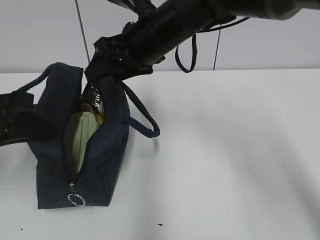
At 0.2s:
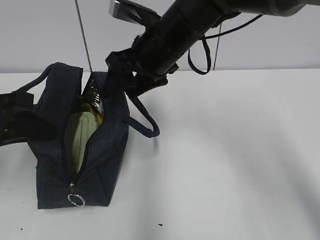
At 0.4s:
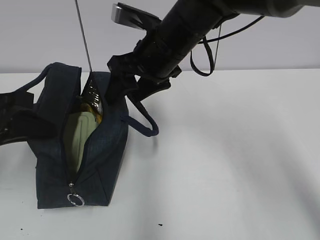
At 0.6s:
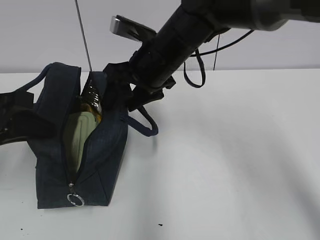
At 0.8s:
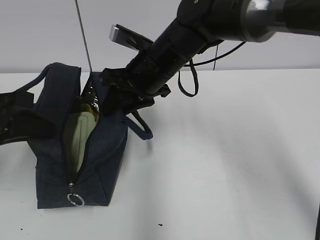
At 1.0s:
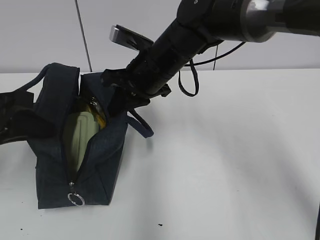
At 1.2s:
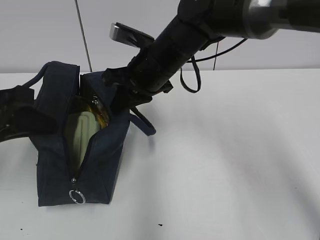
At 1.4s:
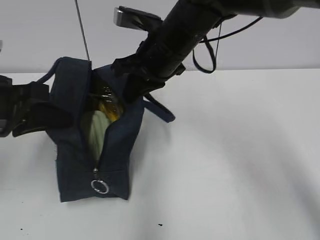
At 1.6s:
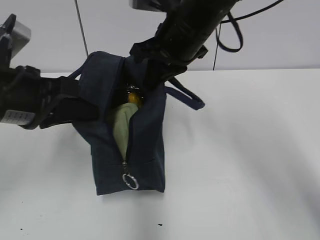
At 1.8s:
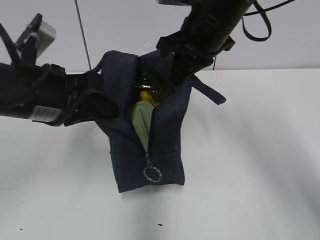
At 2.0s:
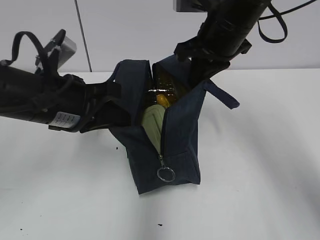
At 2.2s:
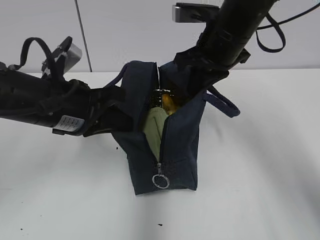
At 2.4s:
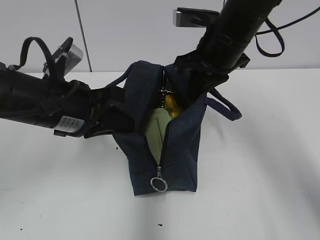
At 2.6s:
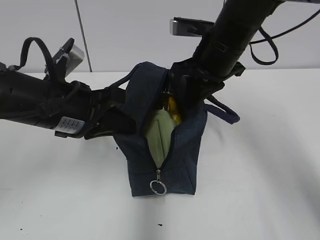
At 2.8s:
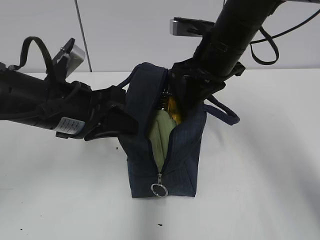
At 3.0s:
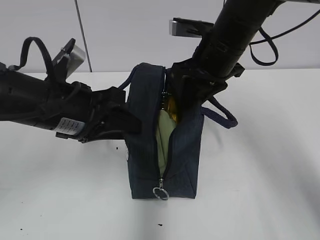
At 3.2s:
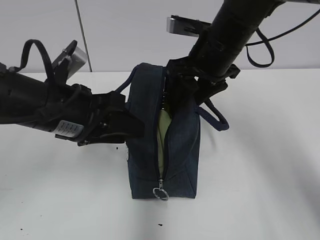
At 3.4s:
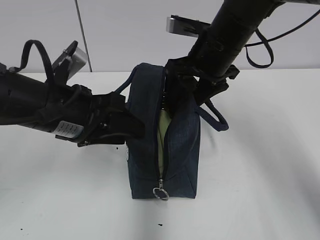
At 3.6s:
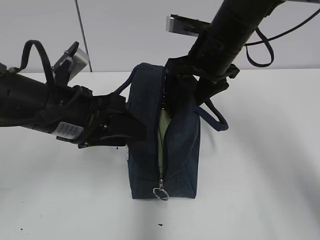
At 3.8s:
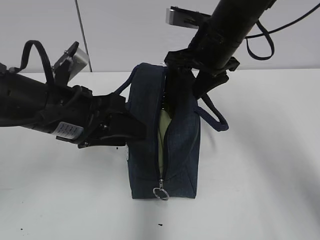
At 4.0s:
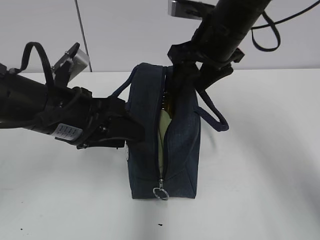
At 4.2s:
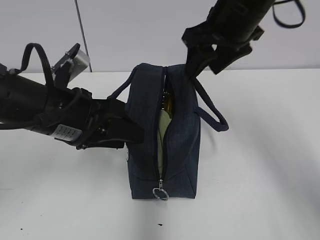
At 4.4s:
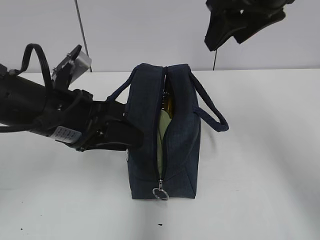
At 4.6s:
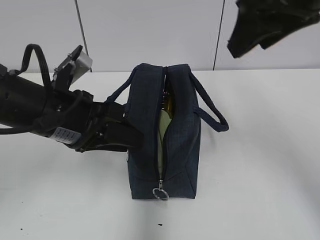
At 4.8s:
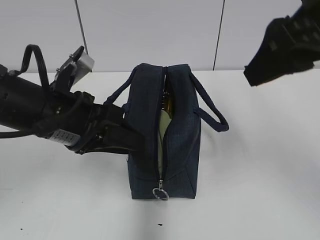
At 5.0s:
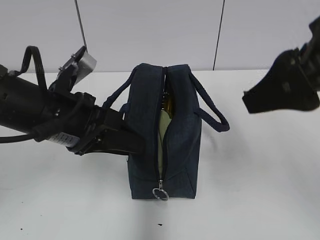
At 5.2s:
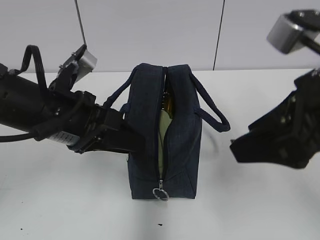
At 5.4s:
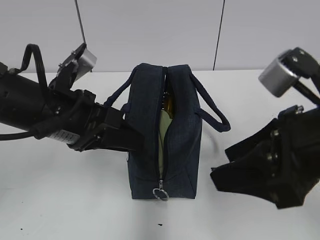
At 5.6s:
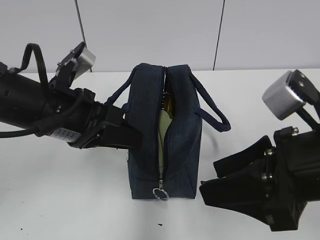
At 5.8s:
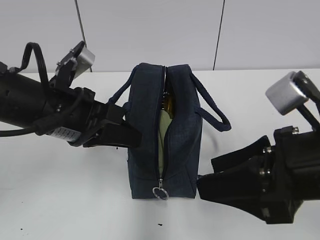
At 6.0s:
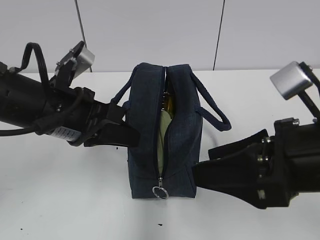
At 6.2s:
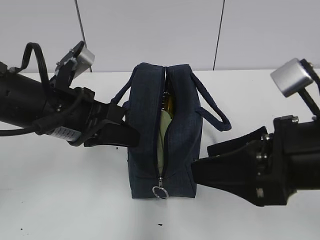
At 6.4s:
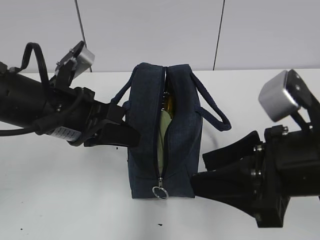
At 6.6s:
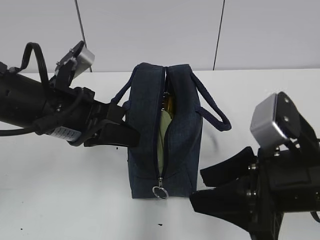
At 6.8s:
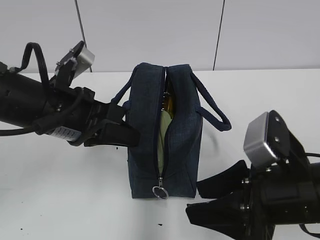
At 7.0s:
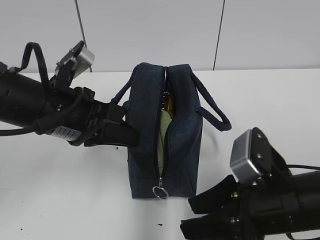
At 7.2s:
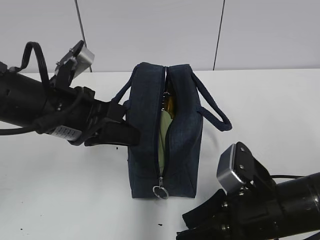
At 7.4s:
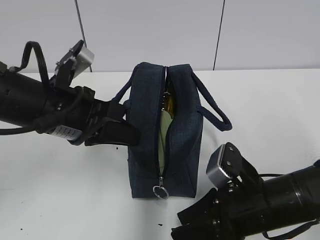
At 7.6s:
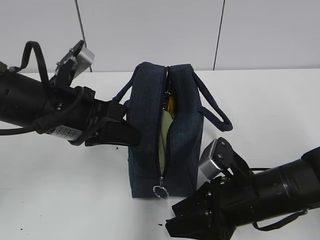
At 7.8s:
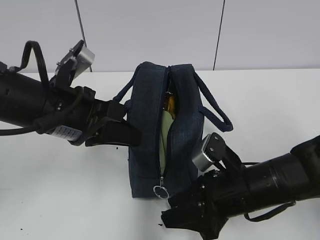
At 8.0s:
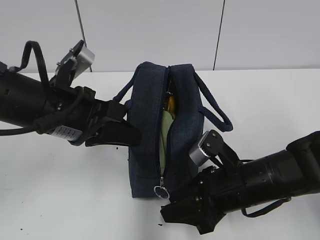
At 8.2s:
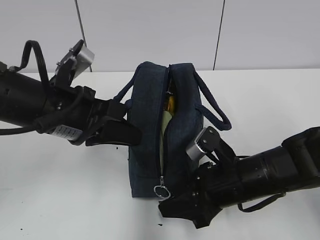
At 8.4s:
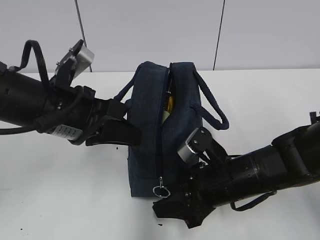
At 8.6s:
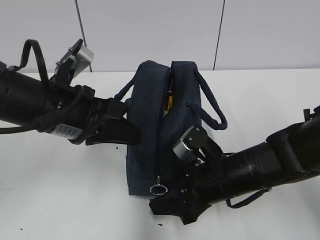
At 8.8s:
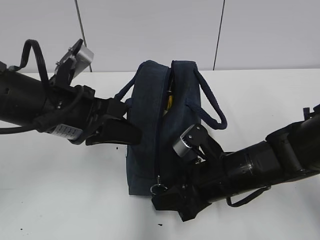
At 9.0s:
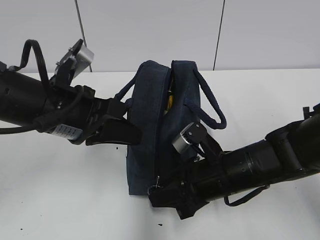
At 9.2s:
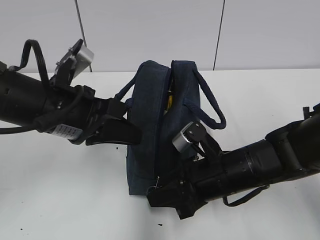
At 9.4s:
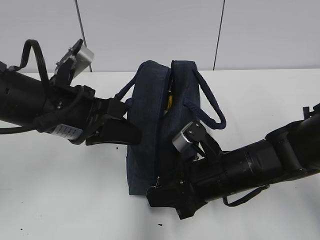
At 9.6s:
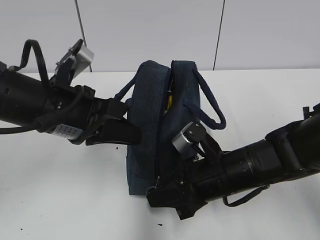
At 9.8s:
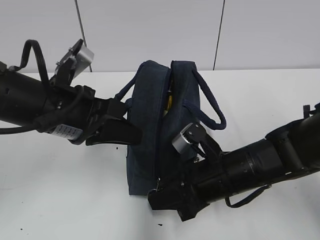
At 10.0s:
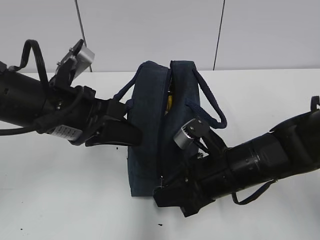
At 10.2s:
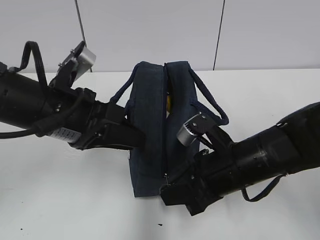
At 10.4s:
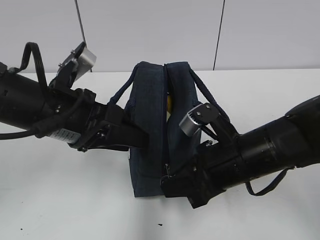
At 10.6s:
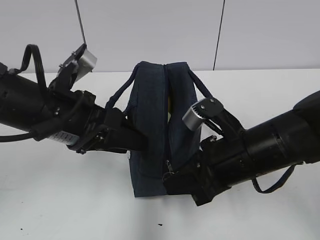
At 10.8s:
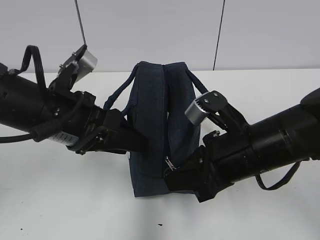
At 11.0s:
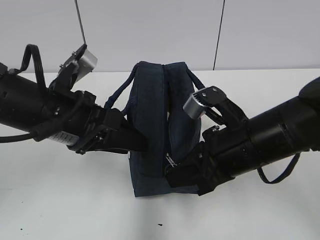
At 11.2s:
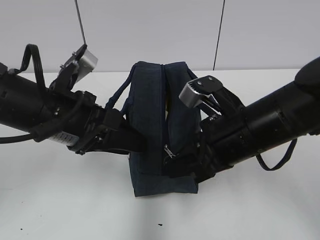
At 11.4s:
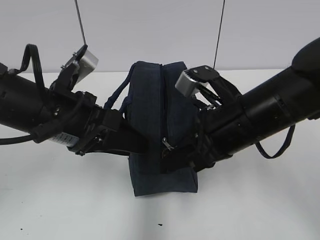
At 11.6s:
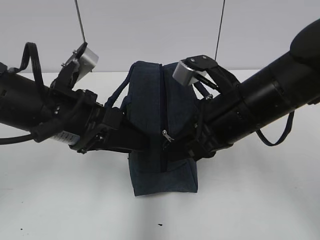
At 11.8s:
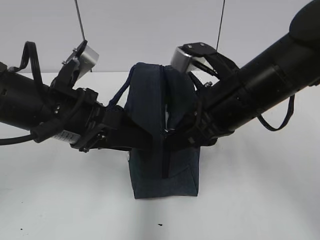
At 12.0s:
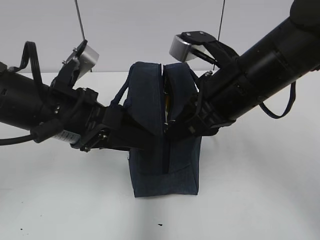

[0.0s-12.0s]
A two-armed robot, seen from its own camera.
0.0s to 1.6s: The left gripper shifts some 5 cm to the right. The right gripper changes place by approximately 5 cm, and closes up.
1.6s to 3.0s: The left gripper moves approximately 5 cm, and opens its fingers; the right gripper changes place by roughly 5 cm, and opens up.
3.0s to 4.4s: The right gripper travels upward by roughly 10 cm, and opens.
4.4s to 6.0s: The right gripper shifts roughly 20 cm backward and downward; the left gripper closes up.
6.0s to 7.6s: The right gripper travels downward by approximately 15 cm.
7.6s to 9.0s: The right gripper closes up.
9.0s to 10.4s: The right gripper is displaced upward by roughly 5 cm. Meanwhile the left gripper opens its fingers.
10.4s to 12.0s: The right gripper shifts about 10 cm upward.

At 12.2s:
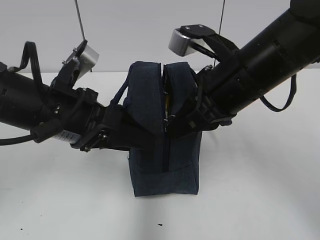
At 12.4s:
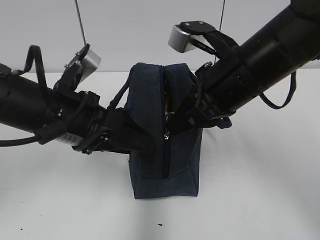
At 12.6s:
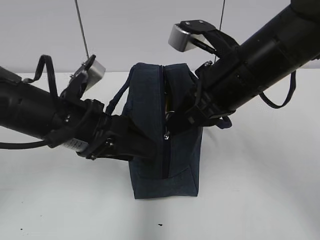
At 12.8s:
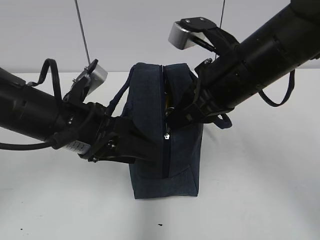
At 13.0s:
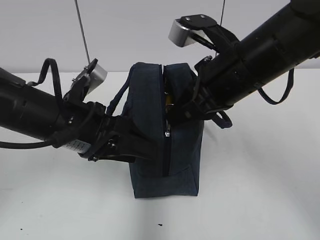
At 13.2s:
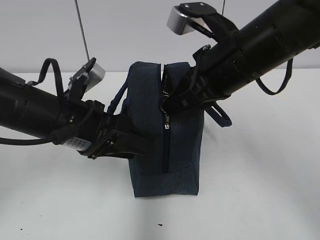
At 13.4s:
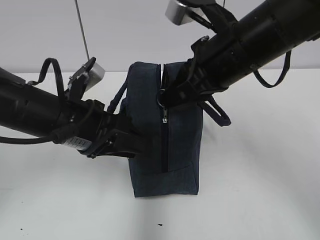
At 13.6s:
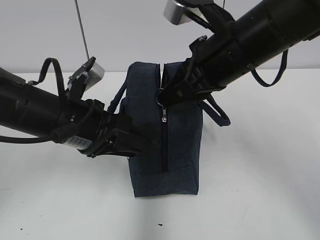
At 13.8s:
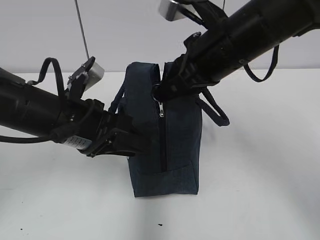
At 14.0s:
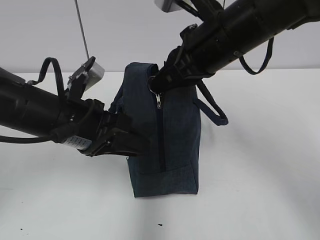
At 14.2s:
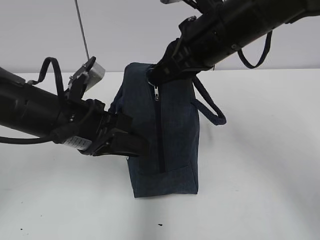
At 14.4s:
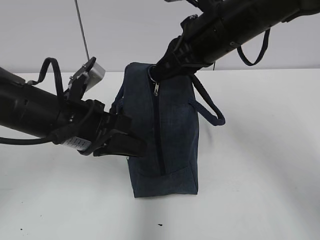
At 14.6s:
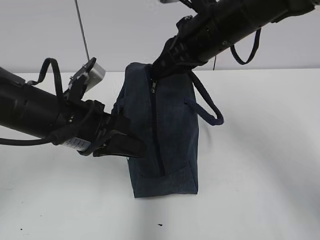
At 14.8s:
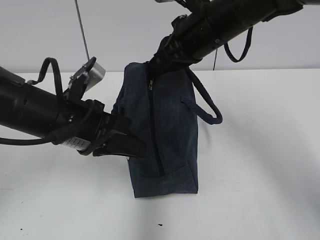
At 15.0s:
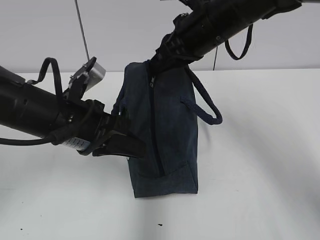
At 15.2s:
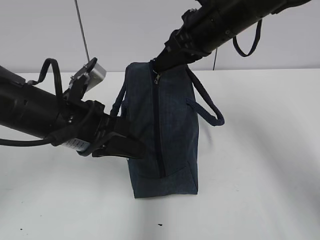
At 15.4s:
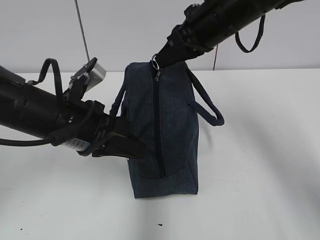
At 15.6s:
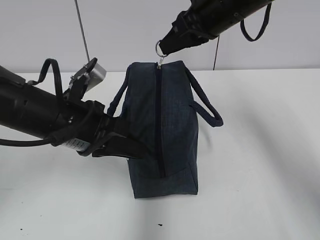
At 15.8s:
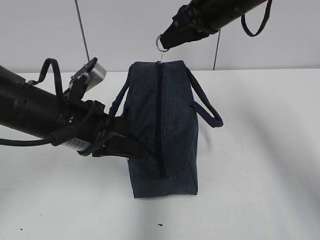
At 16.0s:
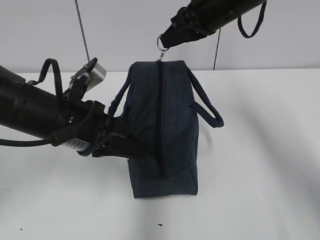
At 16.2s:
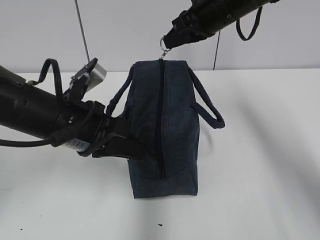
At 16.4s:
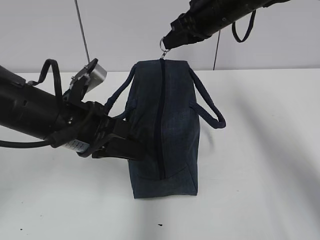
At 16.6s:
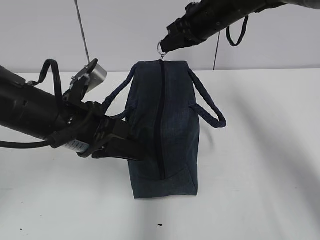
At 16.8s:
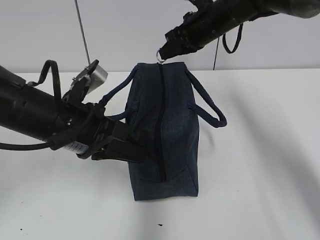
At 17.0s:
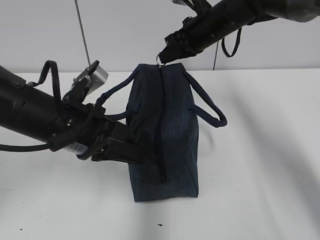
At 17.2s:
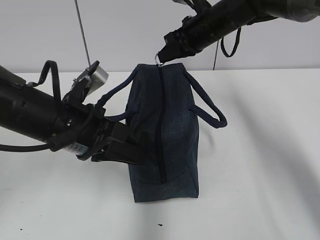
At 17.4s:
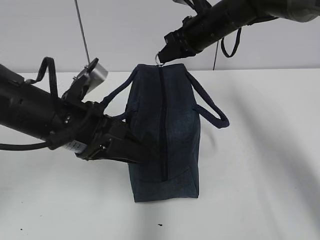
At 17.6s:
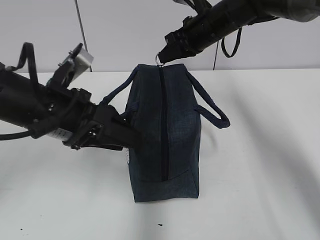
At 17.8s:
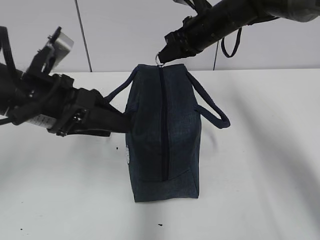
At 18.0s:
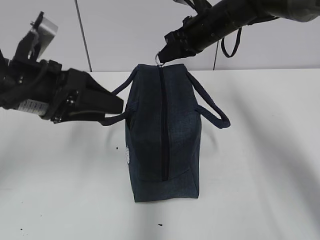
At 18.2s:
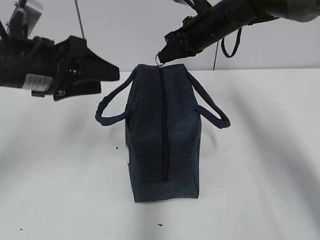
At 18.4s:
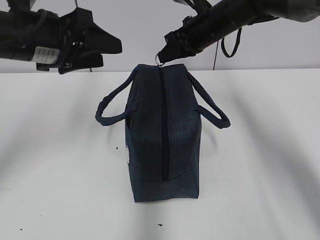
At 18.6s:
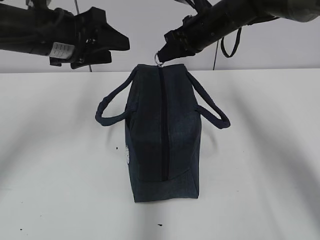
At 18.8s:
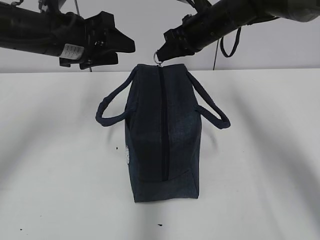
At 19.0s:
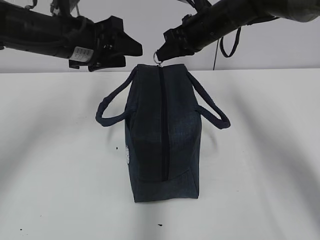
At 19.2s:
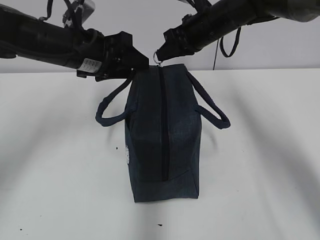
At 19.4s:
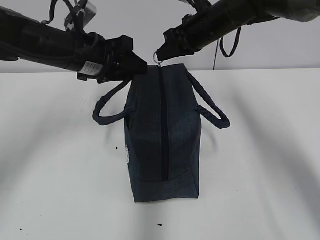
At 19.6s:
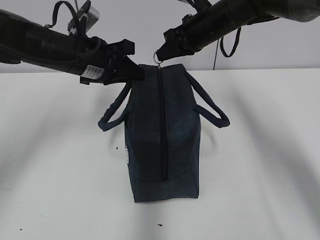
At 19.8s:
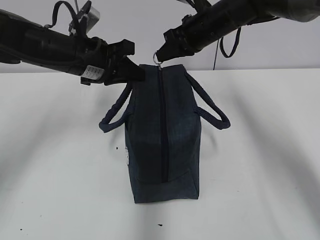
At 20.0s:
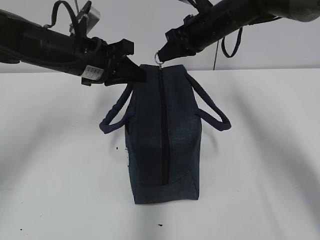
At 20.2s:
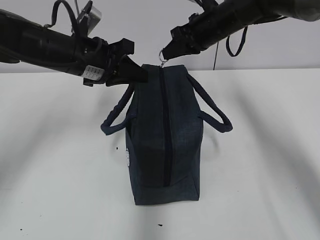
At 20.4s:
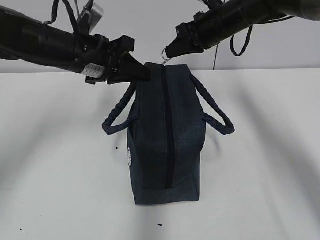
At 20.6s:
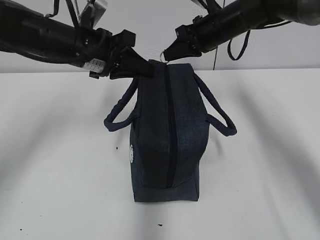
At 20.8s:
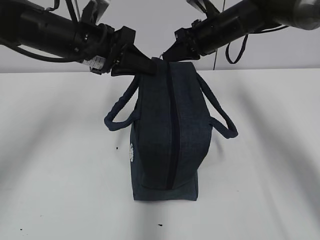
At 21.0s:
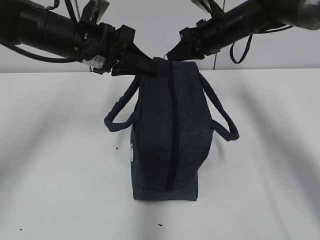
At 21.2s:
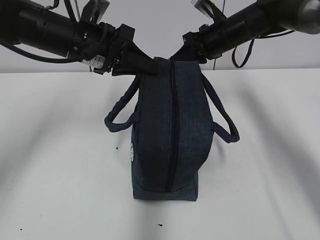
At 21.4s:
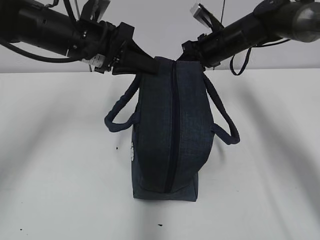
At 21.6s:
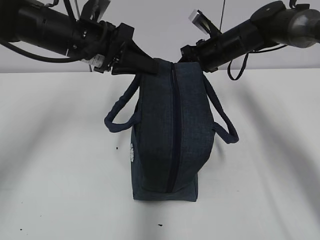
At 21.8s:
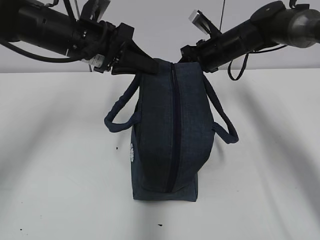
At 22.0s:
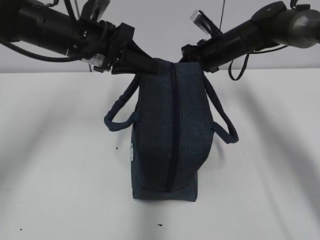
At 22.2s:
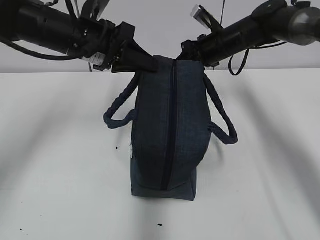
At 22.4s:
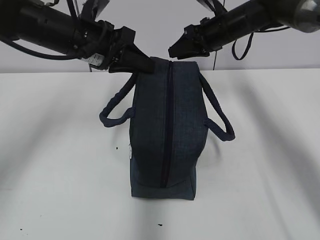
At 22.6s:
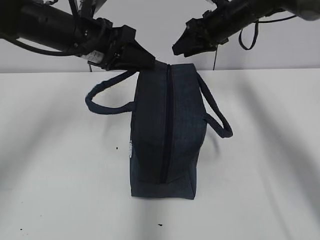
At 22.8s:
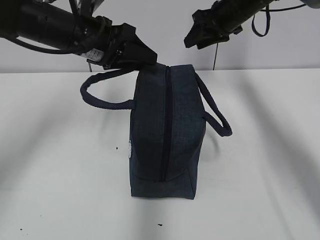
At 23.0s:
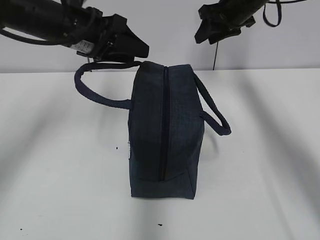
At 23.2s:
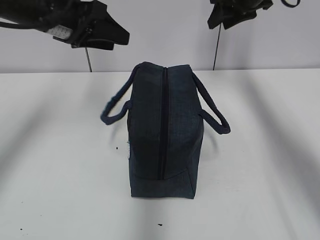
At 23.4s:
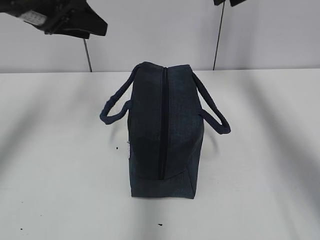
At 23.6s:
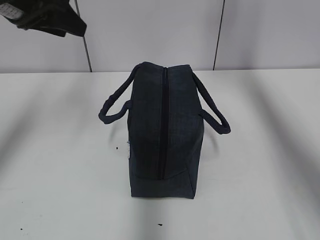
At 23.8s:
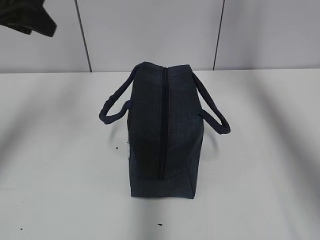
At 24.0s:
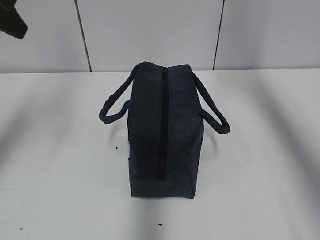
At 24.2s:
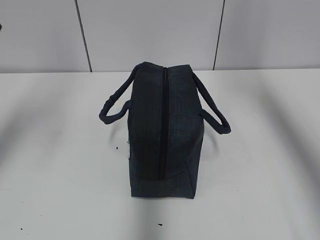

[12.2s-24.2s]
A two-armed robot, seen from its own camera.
12.2s to 13.8s: The left gripper closes up.
13.8s to 15.2s: The right gripper is displaced forward by approximately 5 cm; the left gripper closes.
15.2s to 16.6s: The right gripper travels forward by approximately 10 cm.
16.6s to 18.2s: The left gripper goes some 5 cm upward, and opens.
18.2s to 19.8s: The left gripper goes about 10 cm forward, and closes its fingers.
19.8s to 21.2s: The right gripper ends up some 5 cm from where it was.
21.2s to 22.6s: The left gripper opens; the right gripper opens.
22.6s to 24.2s: The right gripper goes some 25 cm upward and backward. The left gripper shifts some 20 cm upward, to the left and backward.
